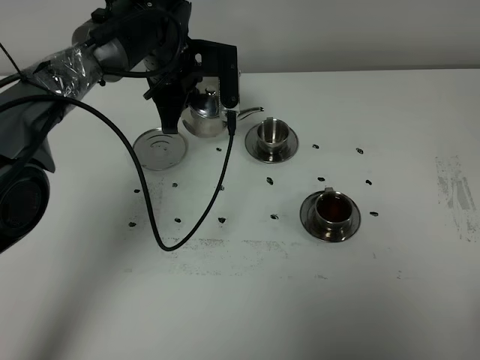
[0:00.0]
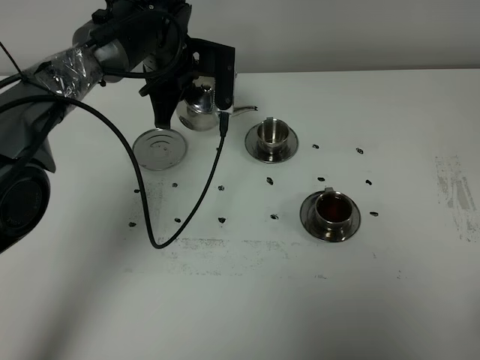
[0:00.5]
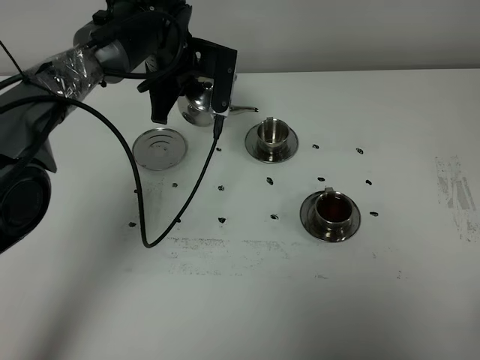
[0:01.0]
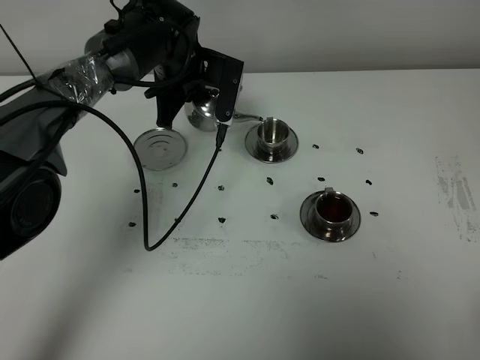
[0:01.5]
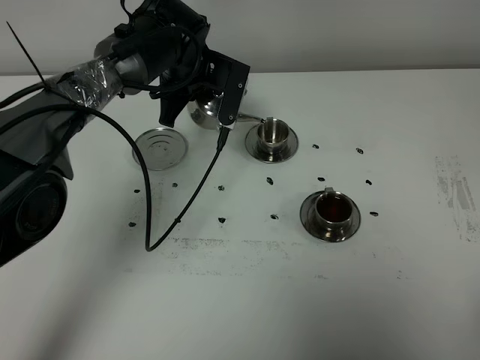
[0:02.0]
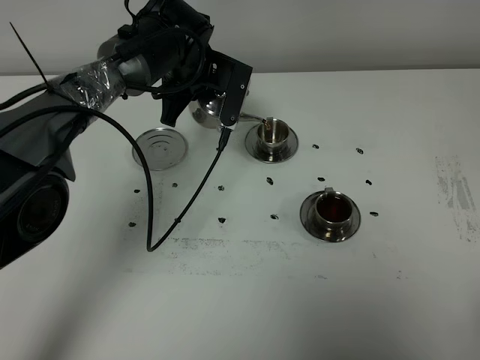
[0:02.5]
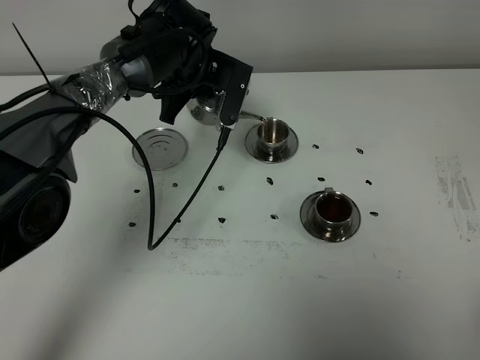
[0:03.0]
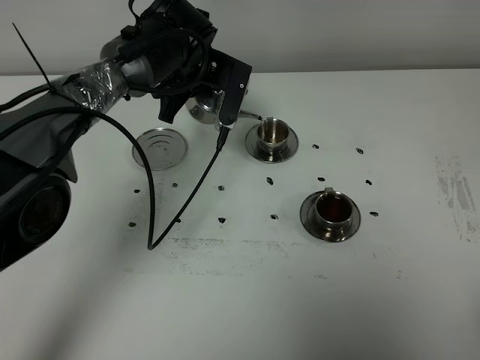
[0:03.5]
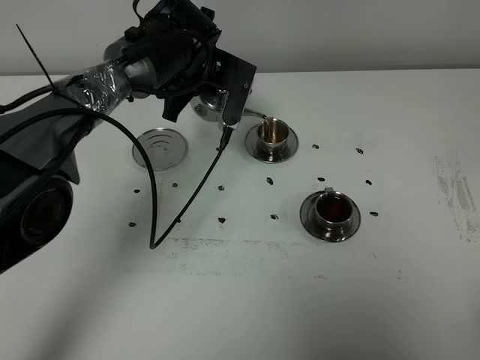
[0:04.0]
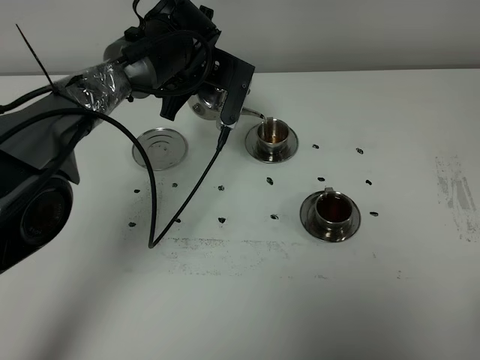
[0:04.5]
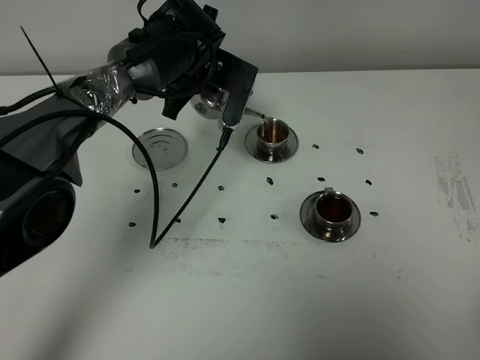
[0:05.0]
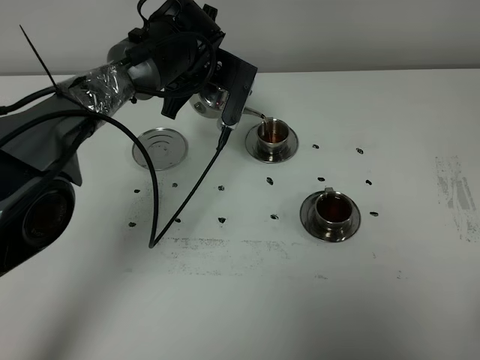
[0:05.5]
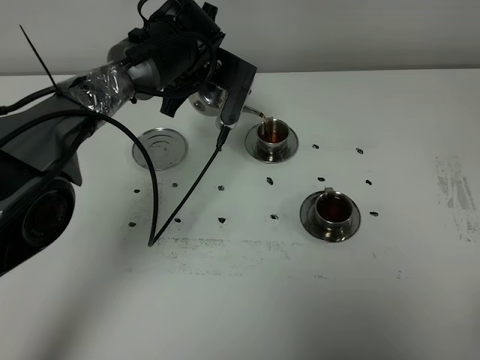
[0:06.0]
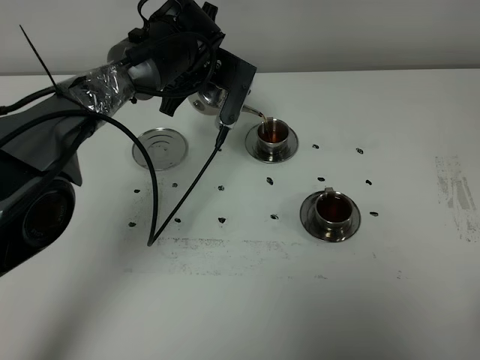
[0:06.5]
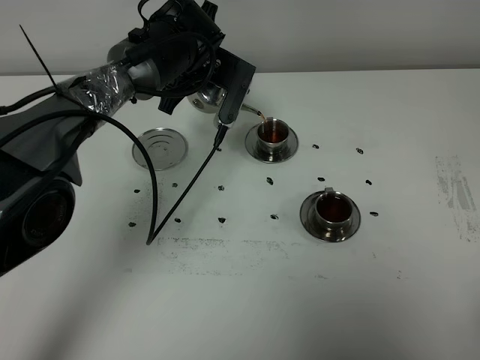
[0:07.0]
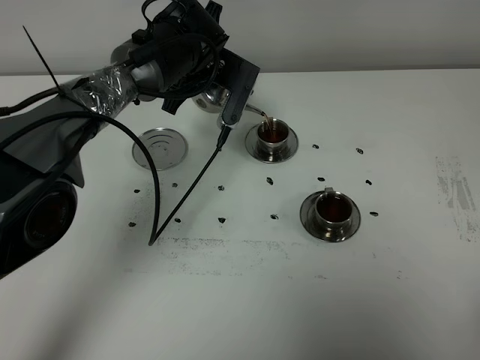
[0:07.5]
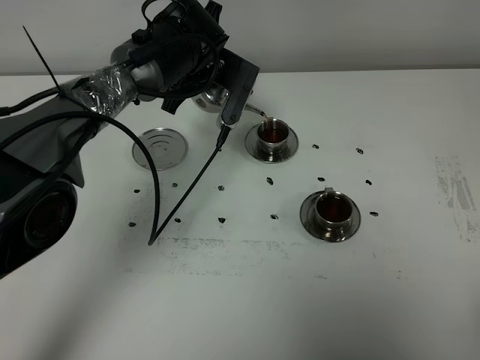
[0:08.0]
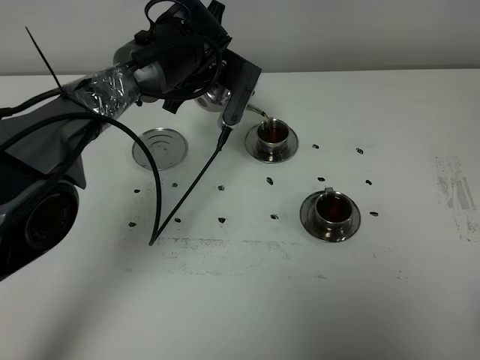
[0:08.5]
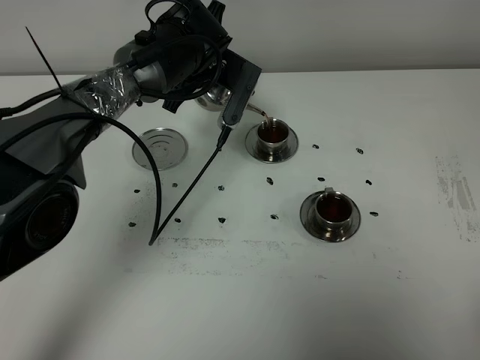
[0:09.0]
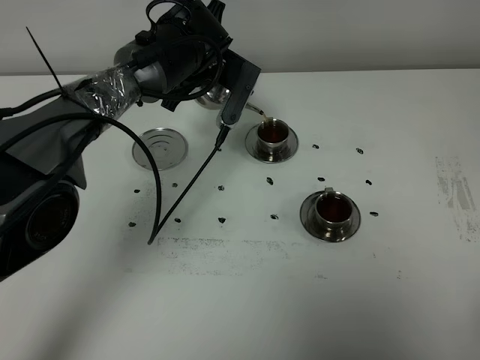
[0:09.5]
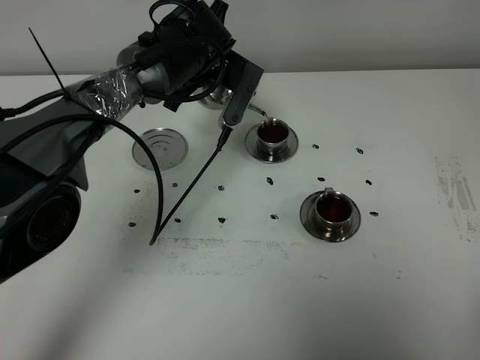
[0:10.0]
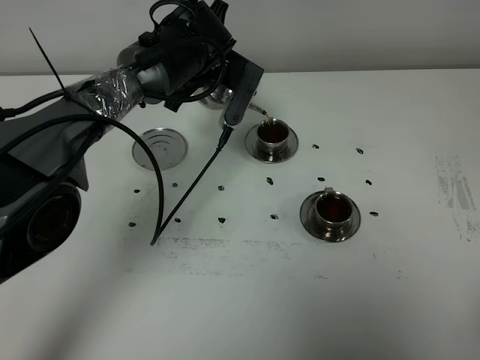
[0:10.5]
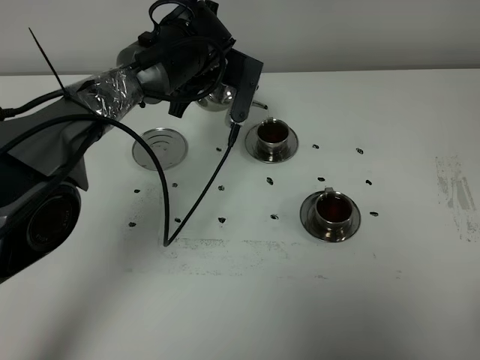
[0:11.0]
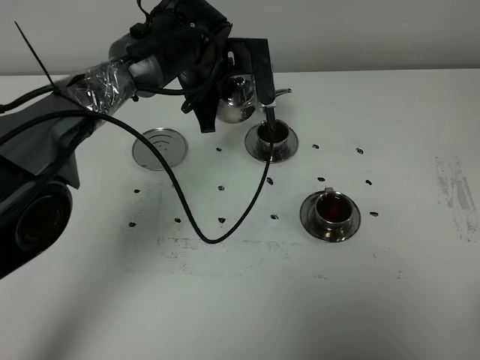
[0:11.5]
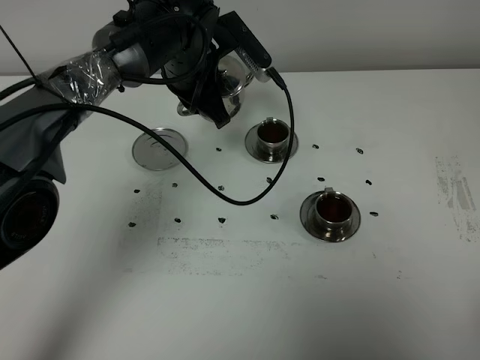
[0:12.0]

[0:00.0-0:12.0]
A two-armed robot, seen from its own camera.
Task of the whole recording: grasp the stainless steel teapot and pour the tea into the two stainless steel teacups one by one, put the stainless steel teapot back in its original place.
Step, 0:00.0 to 0:11.0: Pour tea into the teacup with the left gripper.
0:00.0 to 0:02.0: The grippers move only a little.
0:02.0 to 0:04.0: Neither gripper changes place.
0:04.0 to 0:06.0: Neither gripper changes place.
0:06.0 to 0:08.0: Neither gripper changes place.
0:08.0 to 0:10.0: Both grippers stay put.

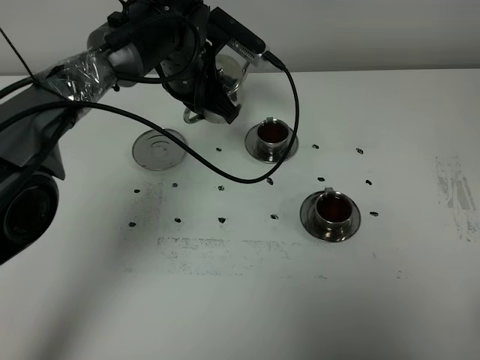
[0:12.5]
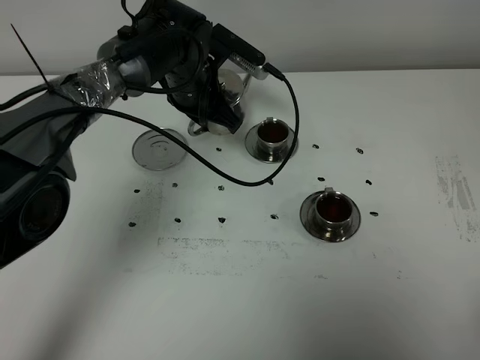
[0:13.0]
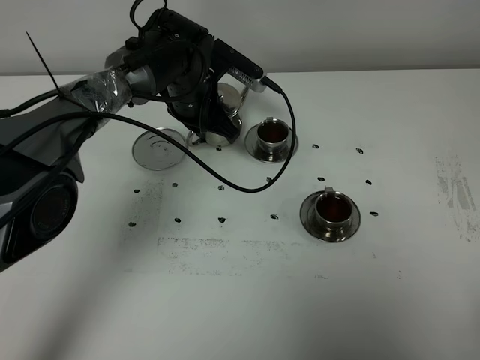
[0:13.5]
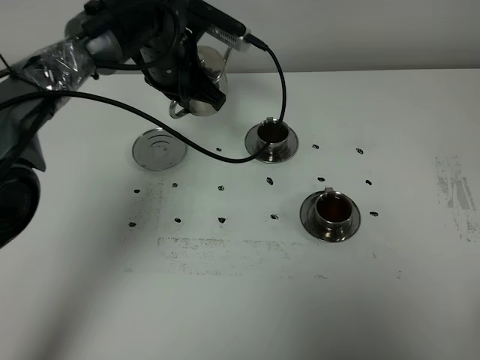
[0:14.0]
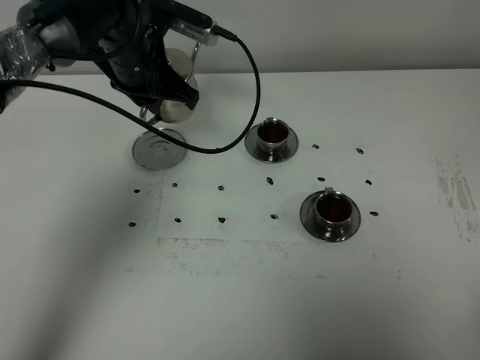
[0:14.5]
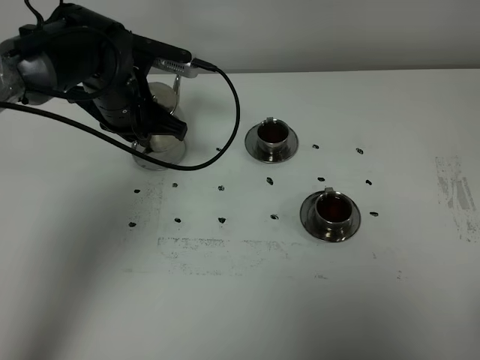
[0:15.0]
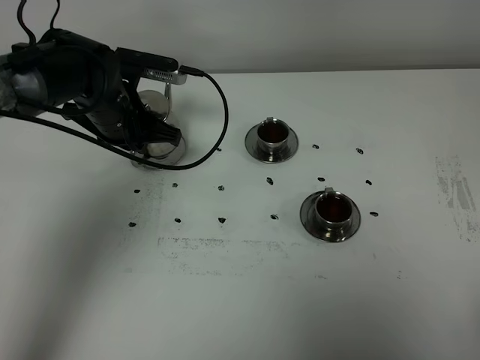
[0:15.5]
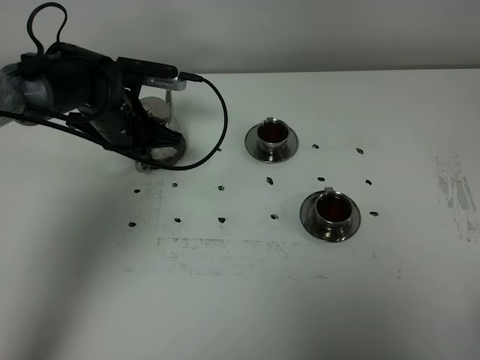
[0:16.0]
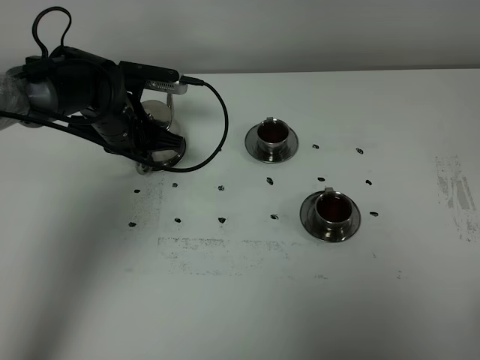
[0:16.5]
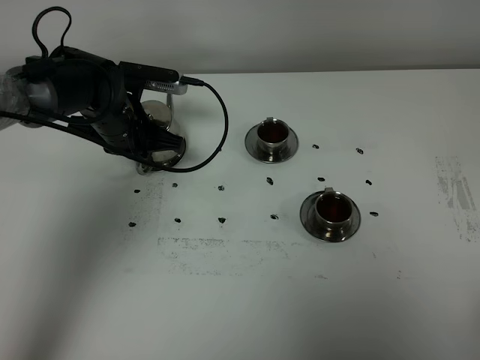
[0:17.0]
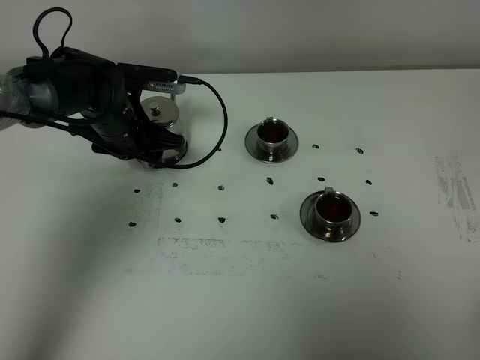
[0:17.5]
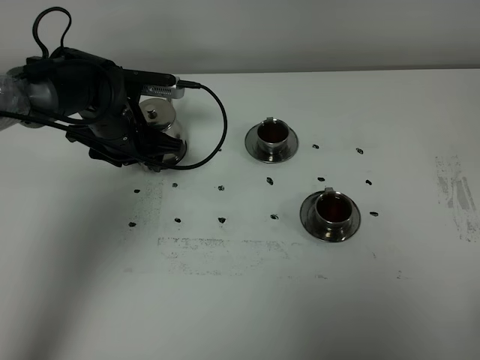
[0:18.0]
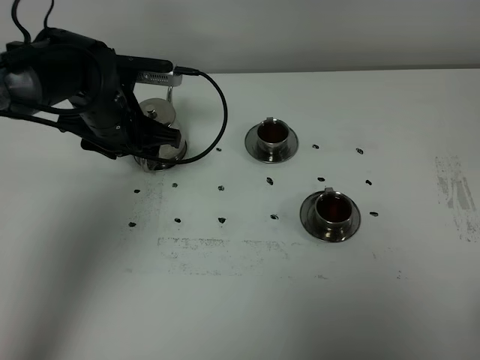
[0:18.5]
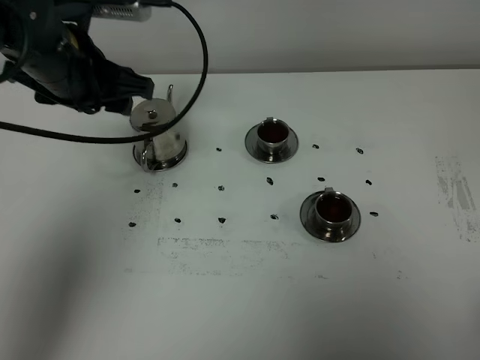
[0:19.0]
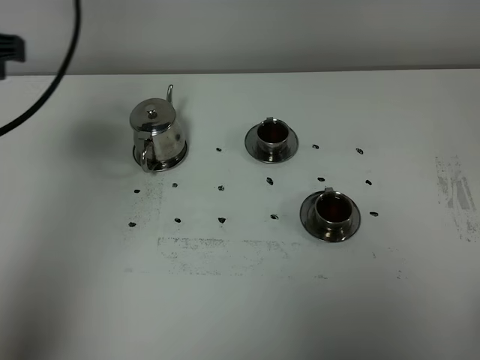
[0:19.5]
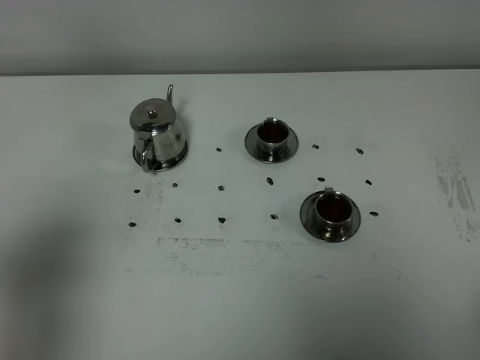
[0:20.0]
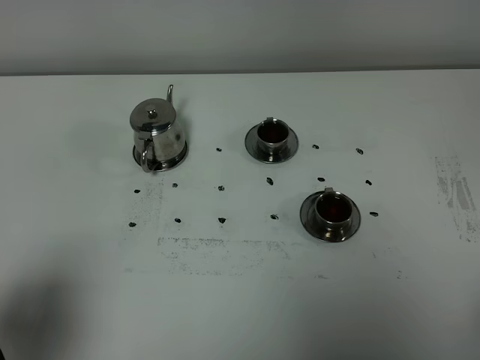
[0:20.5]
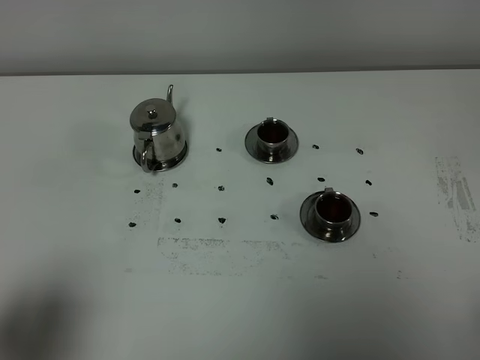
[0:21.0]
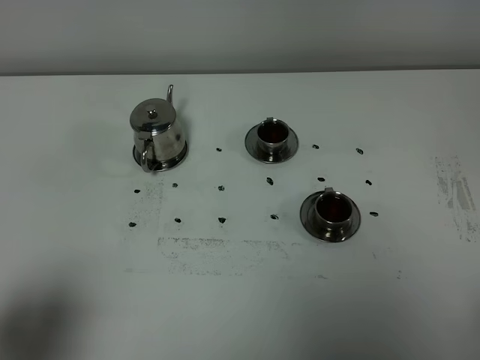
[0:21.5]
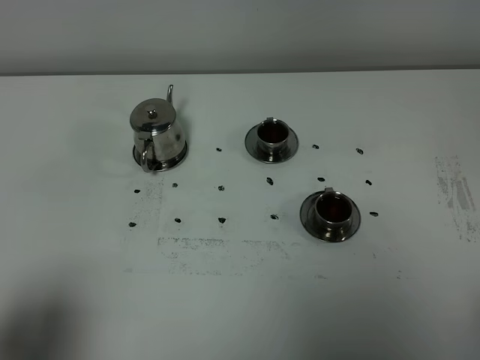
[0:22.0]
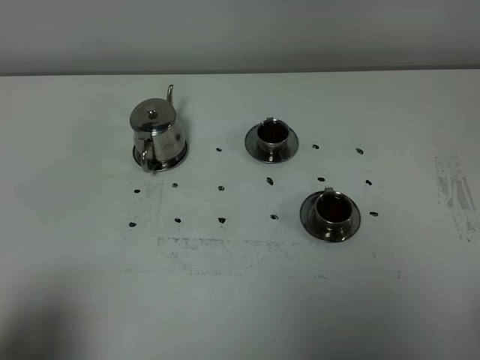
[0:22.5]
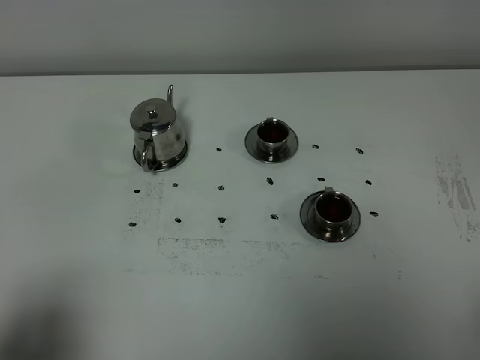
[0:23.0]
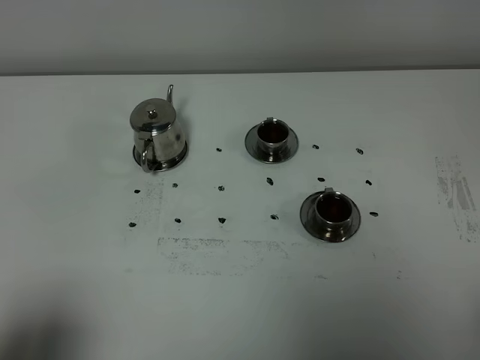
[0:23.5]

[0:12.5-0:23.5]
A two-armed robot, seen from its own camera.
Task of the whole recording: grasp the stainless steel teapot and pour the tea into the two stainless steel teacups one by one, put the stainless steel teapot back in its original place.
0:12.5 to 0:14.5: The left gripper goes some 5 cm to the left.
0:14.5 to 0:16.0: The left gripper heads downward, covering roughly 10 cm.
0:16.0 to 0:18.0: The left gripper opens.
0:18.0 to 0:20.0: The left gripper is displaced backward, upward and to the left by about 40 cm.
0:20.0 to 0:21.5: The left gripper heads downward and backward, covering some 10 cm.

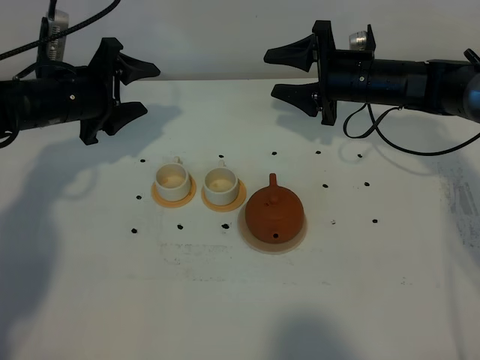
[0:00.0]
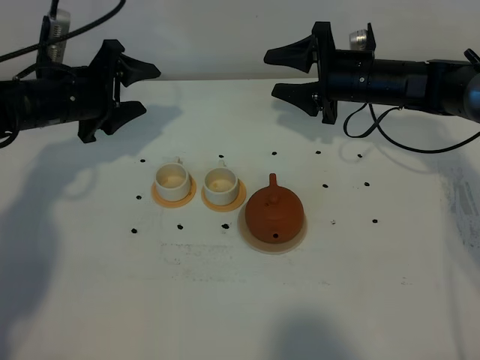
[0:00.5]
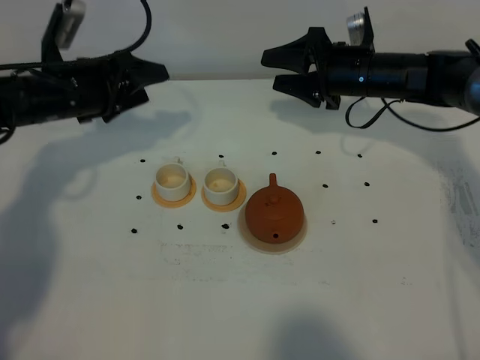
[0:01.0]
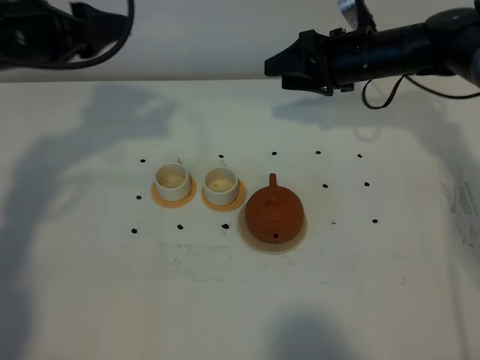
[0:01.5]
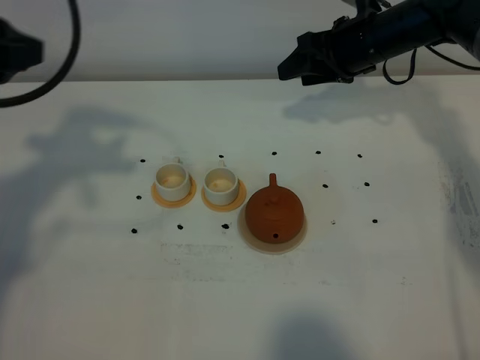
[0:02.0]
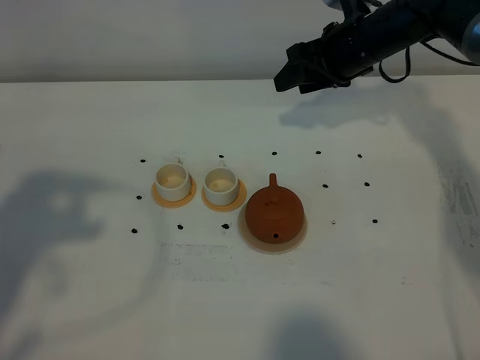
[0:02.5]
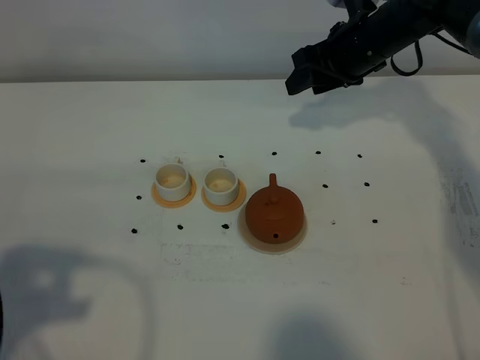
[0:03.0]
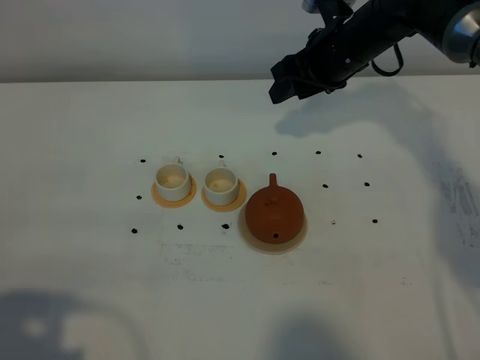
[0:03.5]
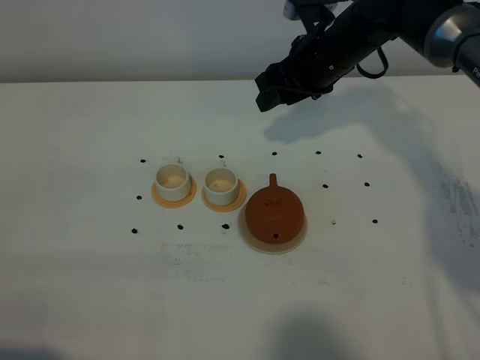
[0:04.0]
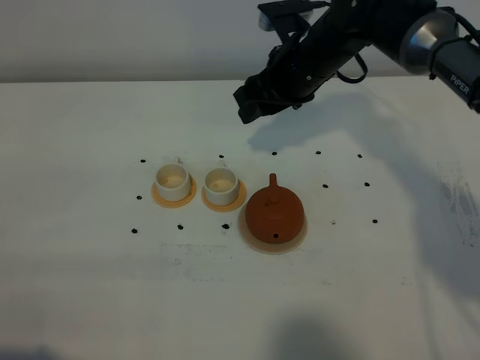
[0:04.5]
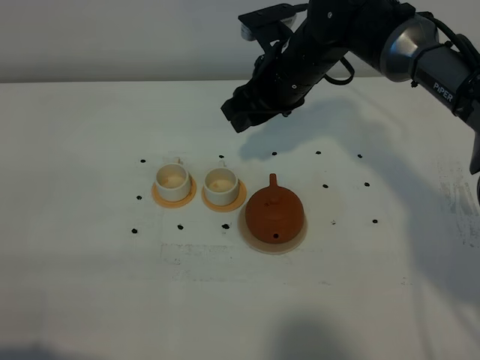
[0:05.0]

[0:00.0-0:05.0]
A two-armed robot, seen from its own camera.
Task of the whole recording: grasp the brown teapot and pour the tea into the two white teacups one by one, put the brown teapot back in its original place.
0:00.0 to 0:02.5: The left gripper goes some 35 cm backward and upward. The right gripper is displaced upward by about 5 cm.
0:02.5 to 0:05.0: The left gripper goes roughly 20 cm backward and downward; the right gripper shifts approximately 10 cm to the left and backward.
